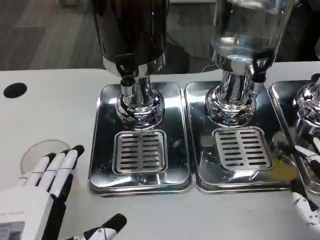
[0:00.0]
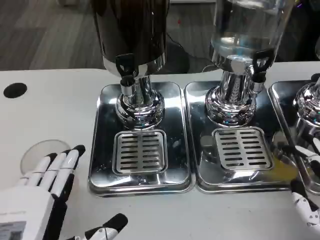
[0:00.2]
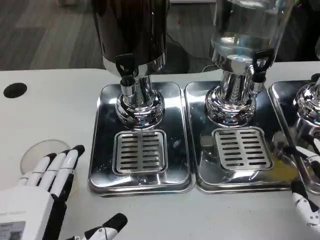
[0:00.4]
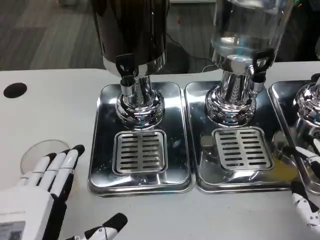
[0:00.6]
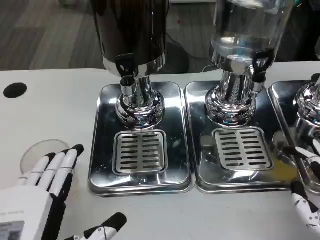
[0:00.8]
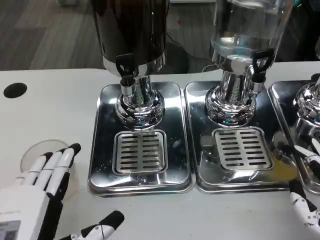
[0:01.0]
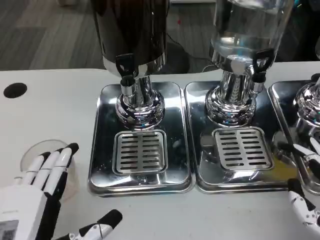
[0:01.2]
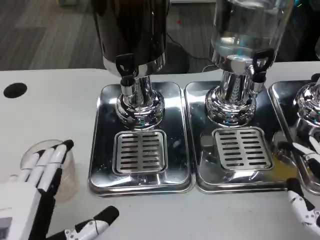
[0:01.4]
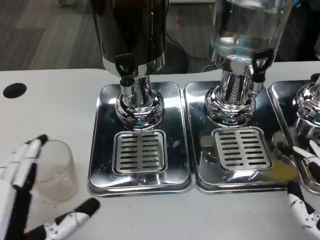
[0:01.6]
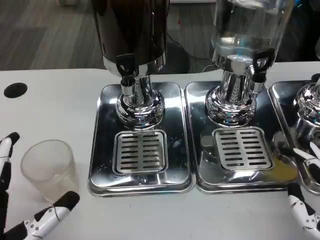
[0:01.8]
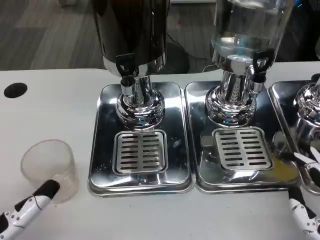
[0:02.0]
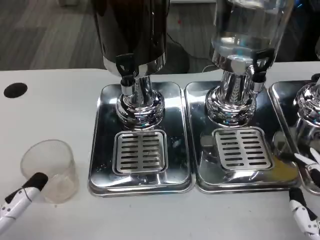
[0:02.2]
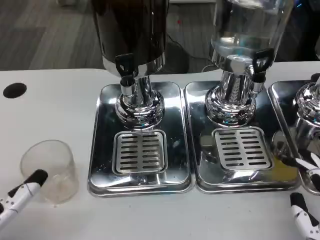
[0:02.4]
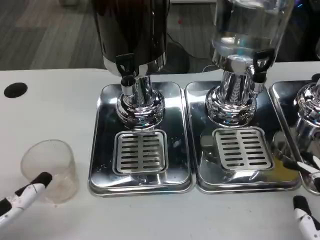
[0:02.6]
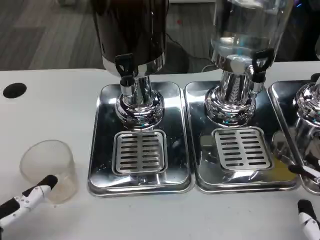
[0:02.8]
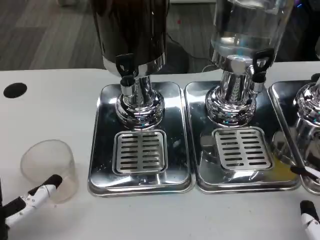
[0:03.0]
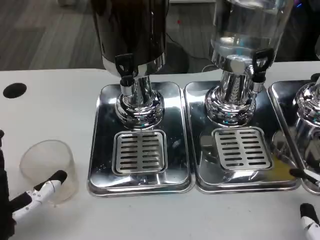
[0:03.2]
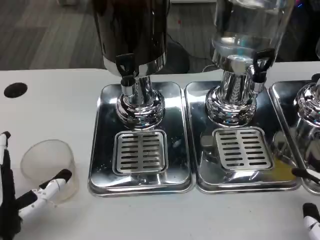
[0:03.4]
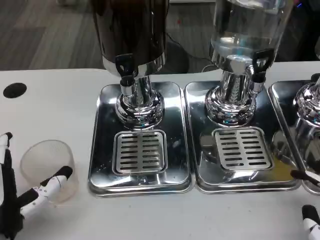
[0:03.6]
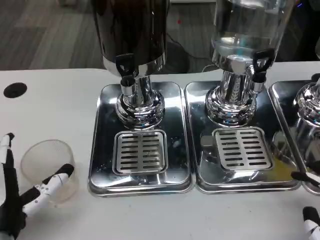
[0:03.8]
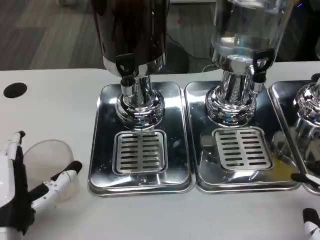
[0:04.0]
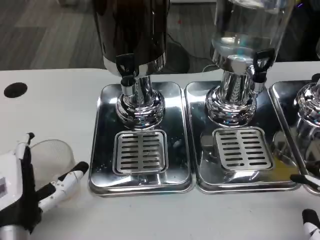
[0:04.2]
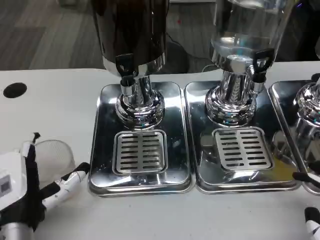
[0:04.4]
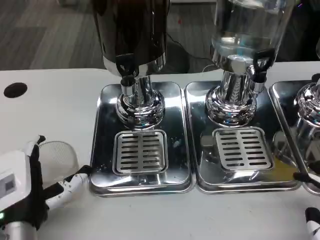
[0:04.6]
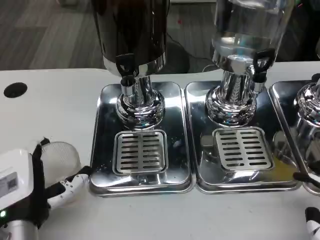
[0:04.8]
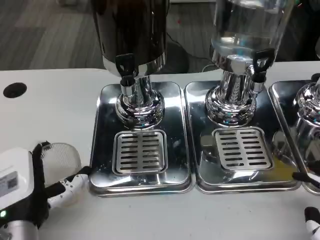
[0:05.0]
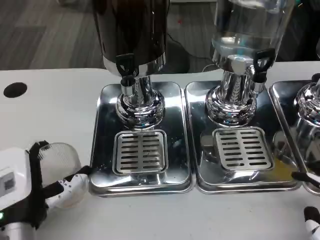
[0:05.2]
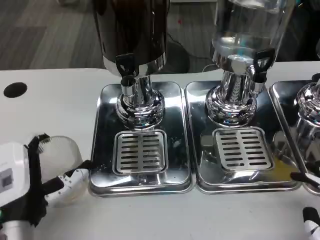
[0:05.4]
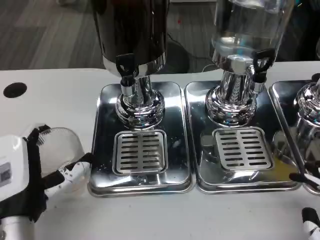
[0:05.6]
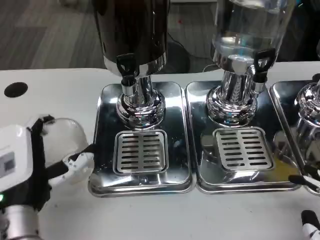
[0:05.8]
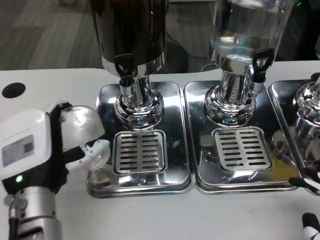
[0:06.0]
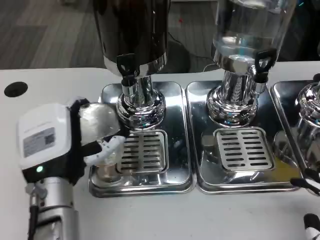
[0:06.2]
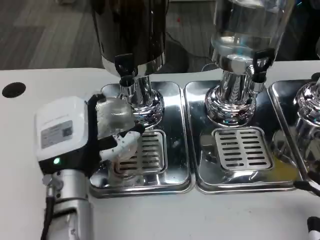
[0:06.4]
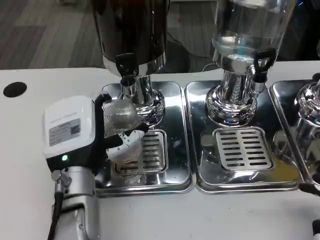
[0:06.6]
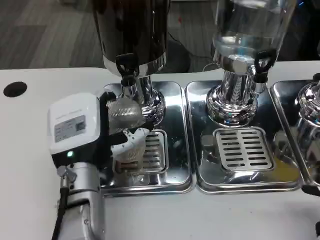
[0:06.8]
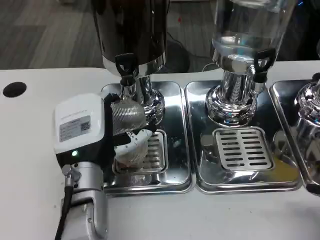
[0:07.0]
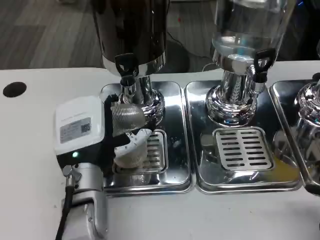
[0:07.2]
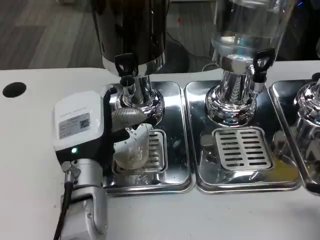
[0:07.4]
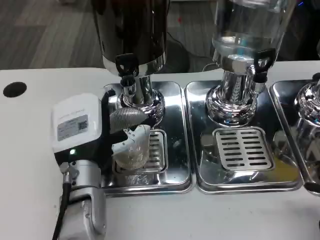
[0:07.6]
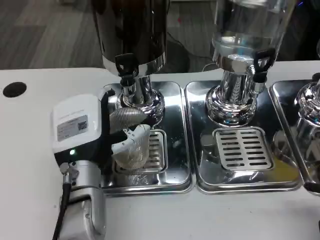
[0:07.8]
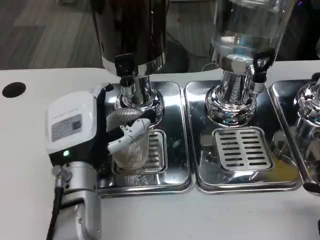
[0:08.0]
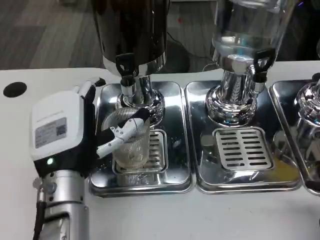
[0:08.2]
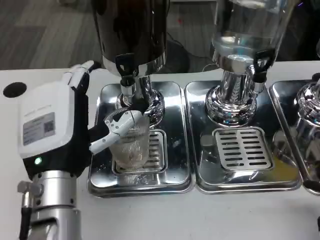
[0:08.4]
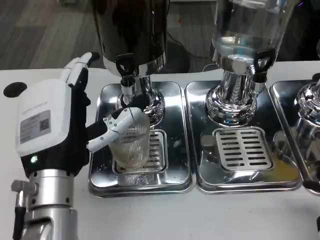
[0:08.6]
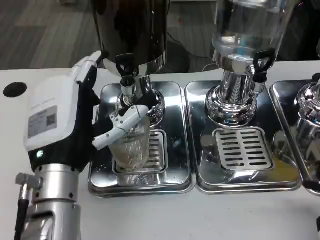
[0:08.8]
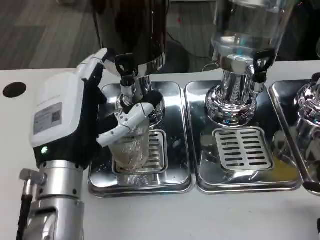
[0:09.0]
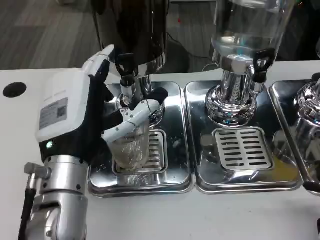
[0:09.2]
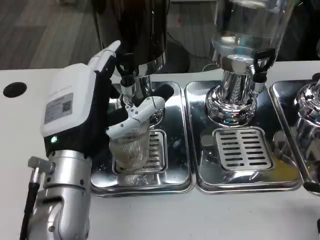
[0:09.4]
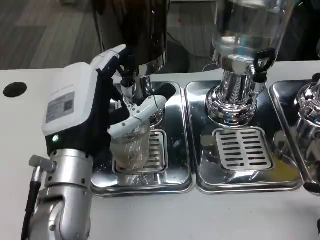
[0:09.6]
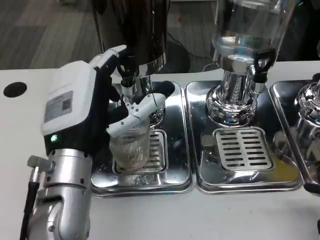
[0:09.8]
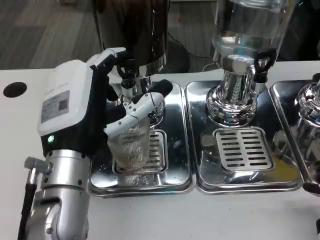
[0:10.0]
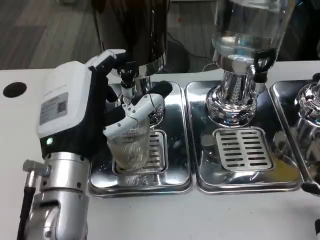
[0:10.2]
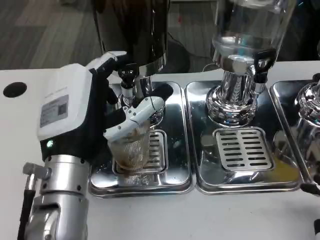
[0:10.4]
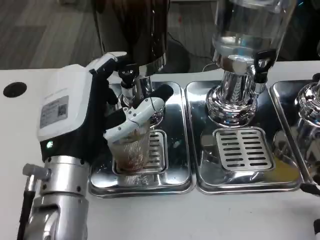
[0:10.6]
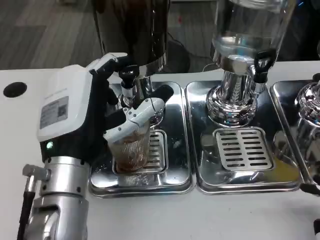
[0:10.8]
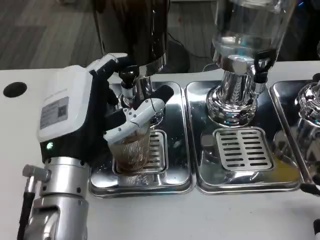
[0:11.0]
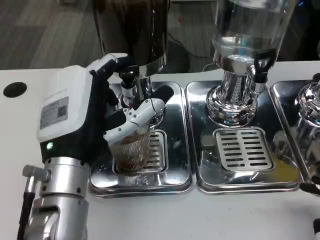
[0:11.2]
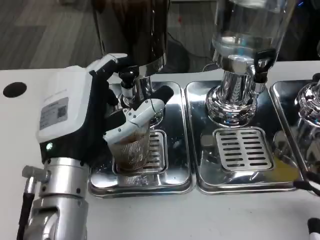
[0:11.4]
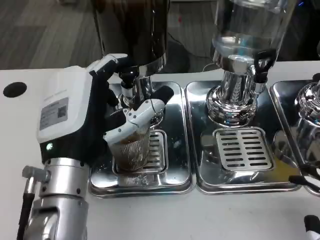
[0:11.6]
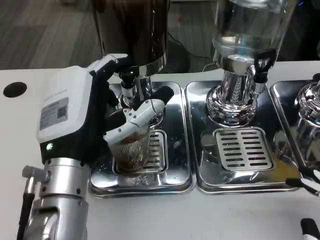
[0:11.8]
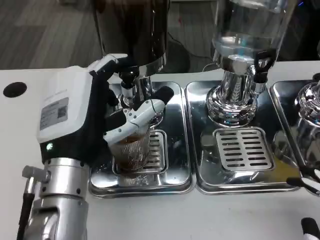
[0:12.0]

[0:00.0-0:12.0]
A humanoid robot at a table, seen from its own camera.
Task of the whole recording: Grasp the cup under the faucet to collect the drink, then remove the cup.
0:00.0 to 0:01.6: The hands move only a little.
0:01.6 to 0:03.0: The left hand heads forward, covering about 5 cm.
0:03.0 to 0:04.4: The hands stay close to where they were, moving slightly.
0:04.4 to 0:06.0: The left hand changes place by about 5 cm.
0:06.0 to 0:07.6: The left hand changes place by approximately 5 cm.
0:07.6 to 0:09.0: The left hand changes place by roughly 5 cm.
0:09.0 to 0:10.4: Neither hand changes place.
0:10.4 to 0:12.0: The hands stay close to where they were, moving slightly.

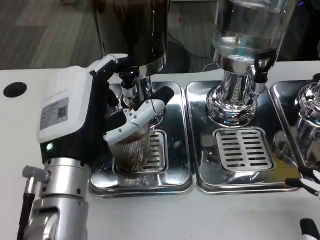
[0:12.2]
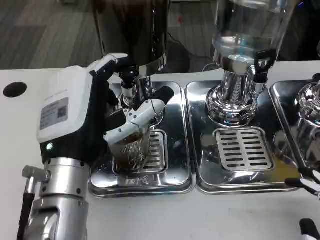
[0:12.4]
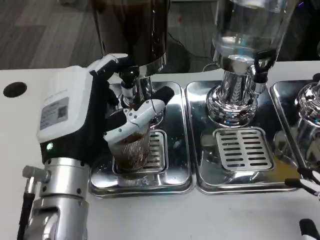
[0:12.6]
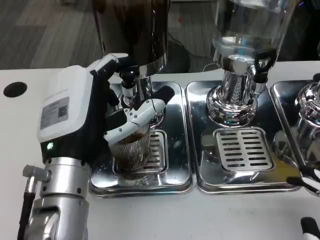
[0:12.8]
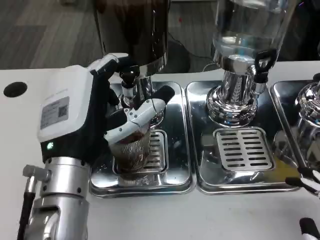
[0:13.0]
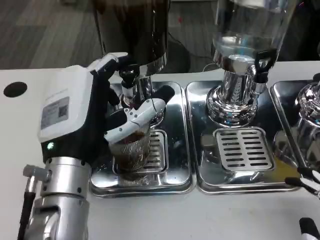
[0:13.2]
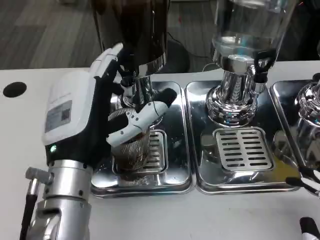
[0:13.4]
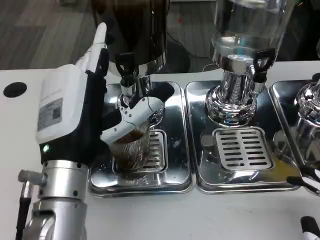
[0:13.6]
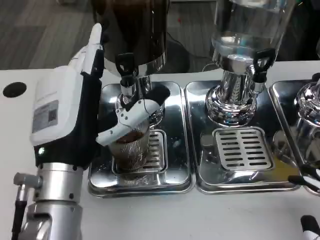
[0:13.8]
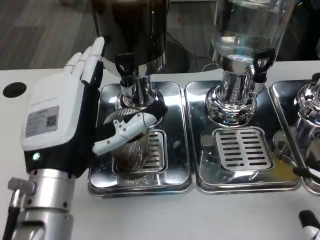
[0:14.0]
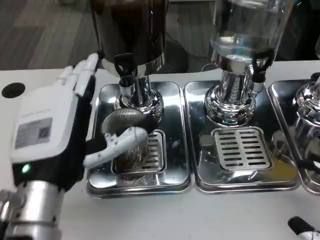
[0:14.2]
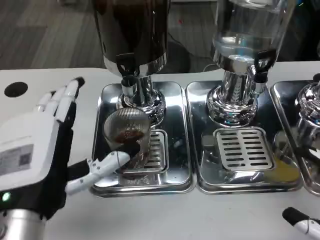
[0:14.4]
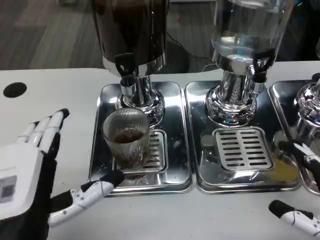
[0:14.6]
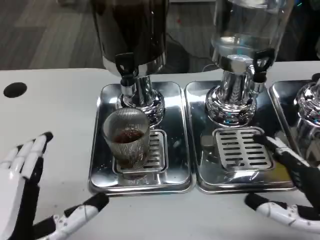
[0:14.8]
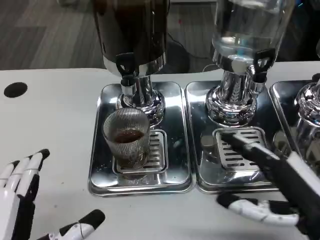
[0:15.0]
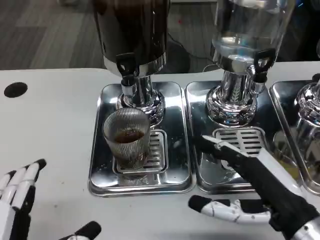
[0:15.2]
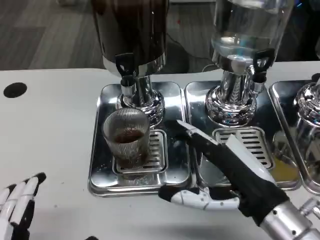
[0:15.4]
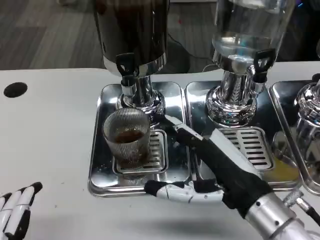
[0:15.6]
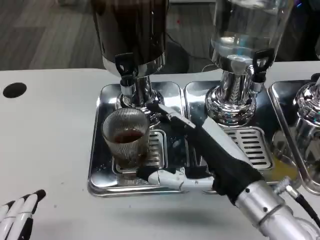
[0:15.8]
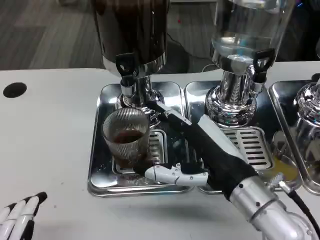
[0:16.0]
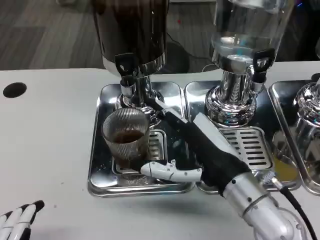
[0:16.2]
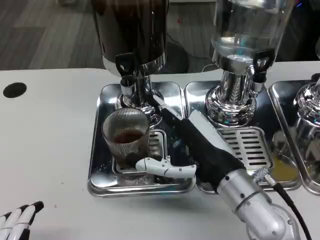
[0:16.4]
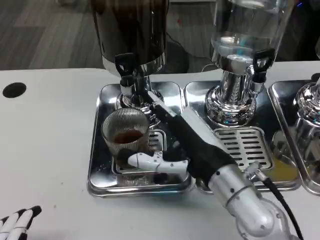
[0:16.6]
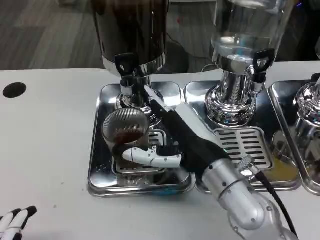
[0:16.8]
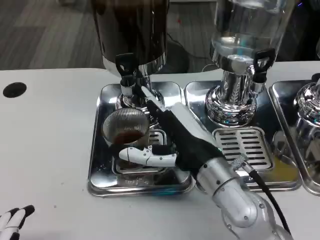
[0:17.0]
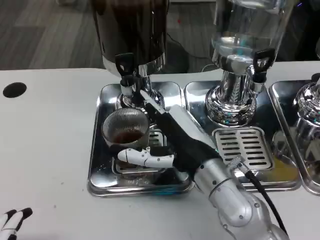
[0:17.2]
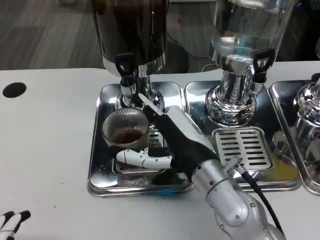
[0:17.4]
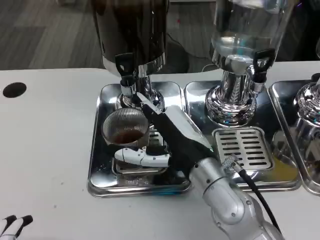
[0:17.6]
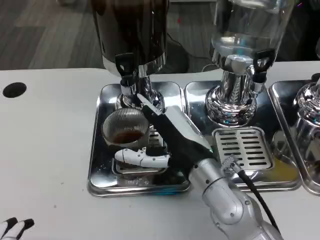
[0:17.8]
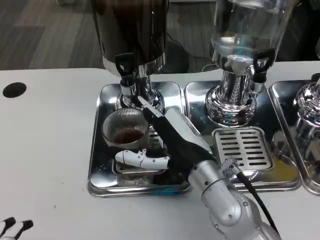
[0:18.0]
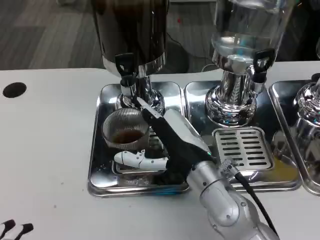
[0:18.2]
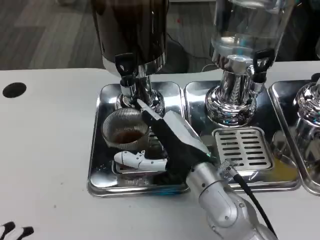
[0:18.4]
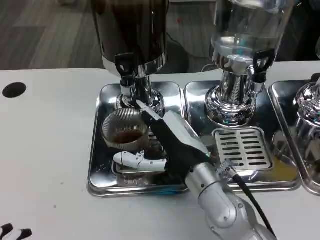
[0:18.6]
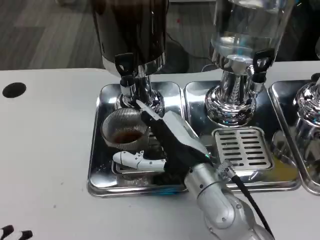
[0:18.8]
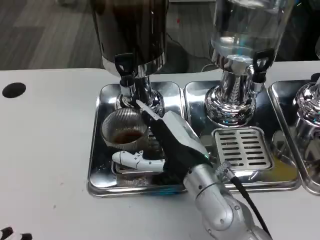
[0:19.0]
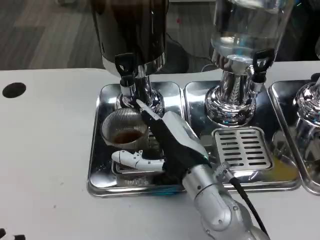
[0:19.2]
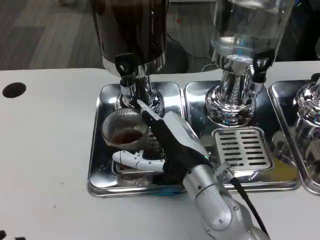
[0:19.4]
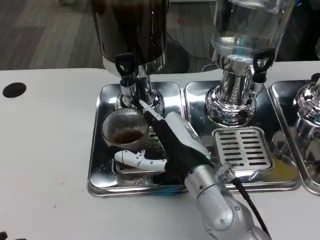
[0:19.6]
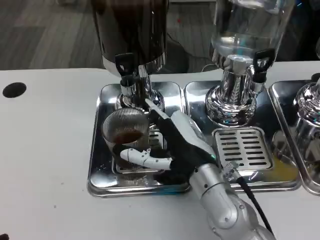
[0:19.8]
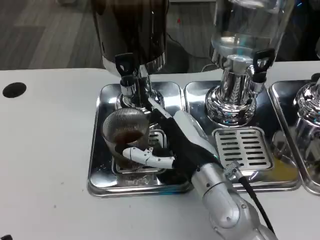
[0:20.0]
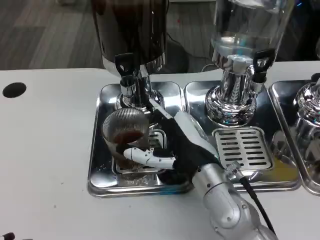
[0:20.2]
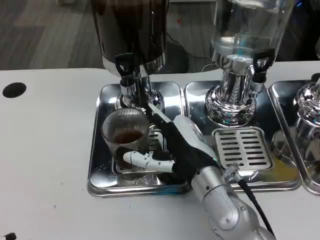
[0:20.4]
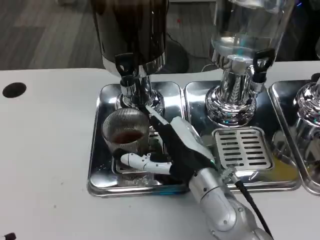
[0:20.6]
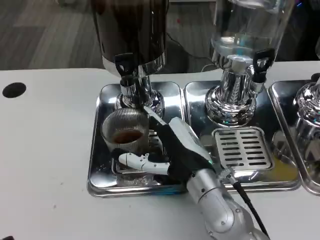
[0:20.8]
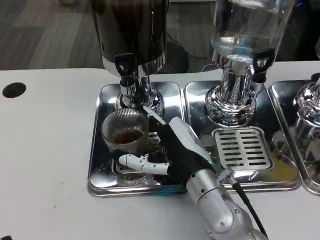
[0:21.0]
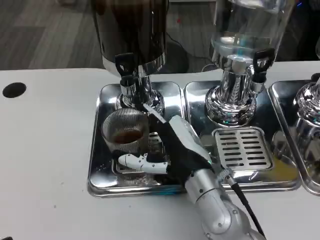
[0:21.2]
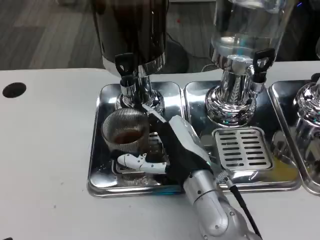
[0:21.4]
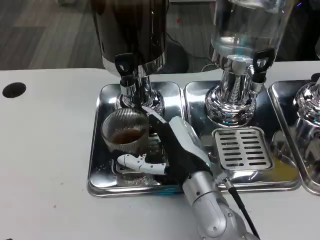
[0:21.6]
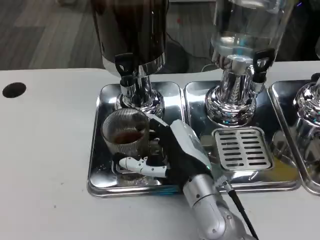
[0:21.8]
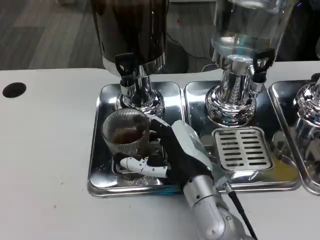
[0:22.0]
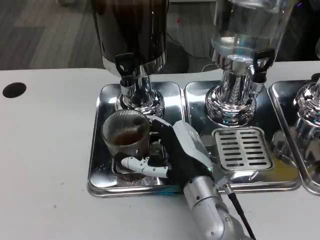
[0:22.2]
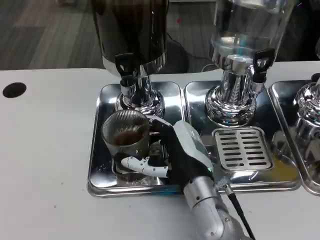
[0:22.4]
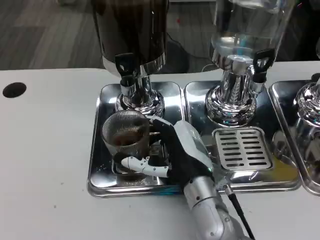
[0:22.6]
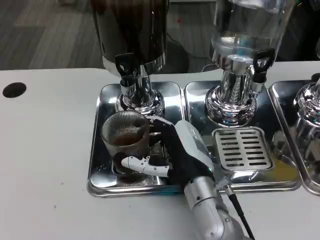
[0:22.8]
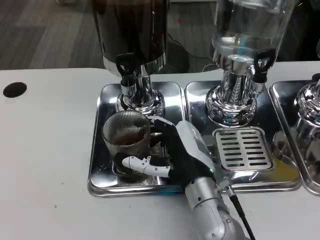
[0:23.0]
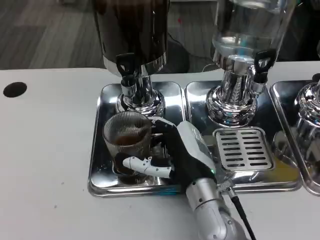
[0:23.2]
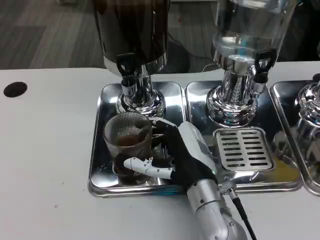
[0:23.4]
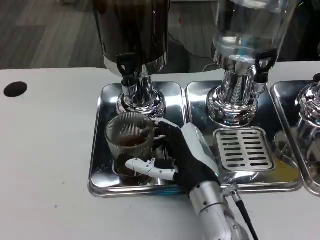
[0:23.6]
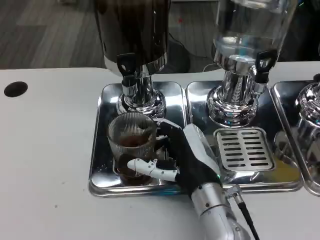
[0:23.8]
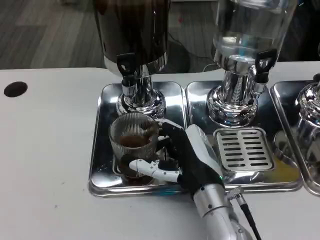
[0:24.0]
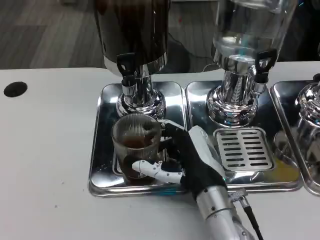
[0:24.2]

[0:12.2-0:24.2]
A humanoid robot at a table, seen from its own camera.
Task of the whole recording: Grasp the cup under the faucet to collect the drink, then remove the cup.
0:12.2 to 0:13.8: The hands stay close to where they were, moving slightly.
0:13.8 to 0:15.2: The left hand goes some 15 cm backward and to the left. The right hand moves forward and to the left, some 15 cm.
0:15.2 to 0:16.6: The right hand goes about 10 cm to the left and forward.
0:16.6 to 0:19.8: There are only small adjustments of the hands.
0:19.8 to 0:21.2: Neither hand changes place.
0:21.2 to 0:24.2: There are only small adjustments of the hands.
